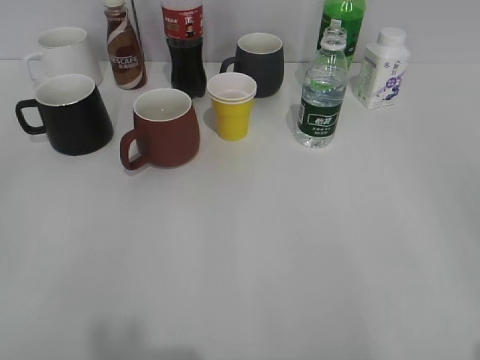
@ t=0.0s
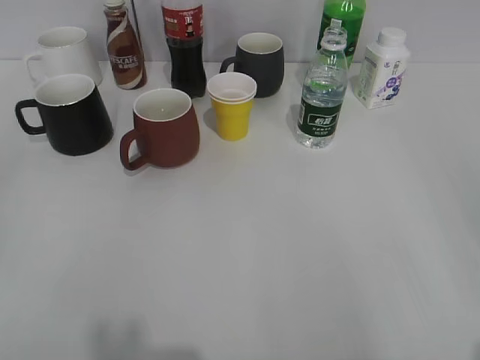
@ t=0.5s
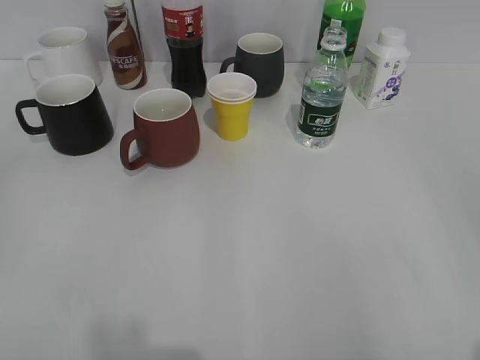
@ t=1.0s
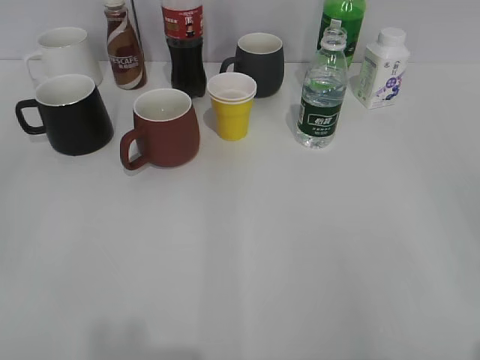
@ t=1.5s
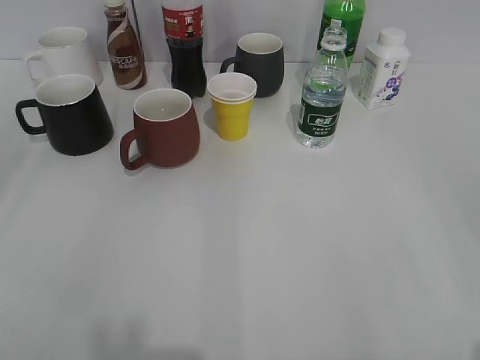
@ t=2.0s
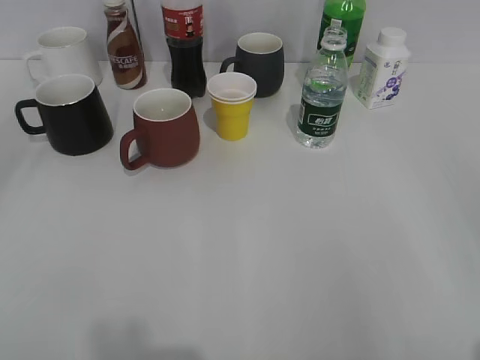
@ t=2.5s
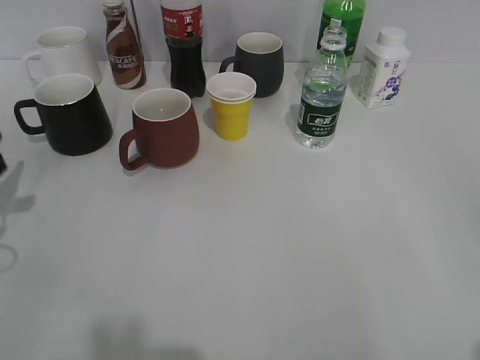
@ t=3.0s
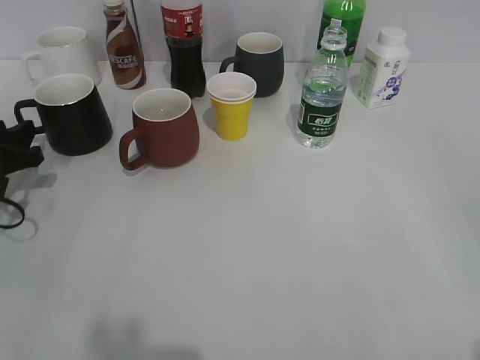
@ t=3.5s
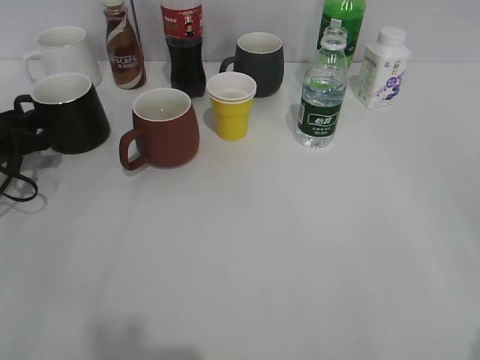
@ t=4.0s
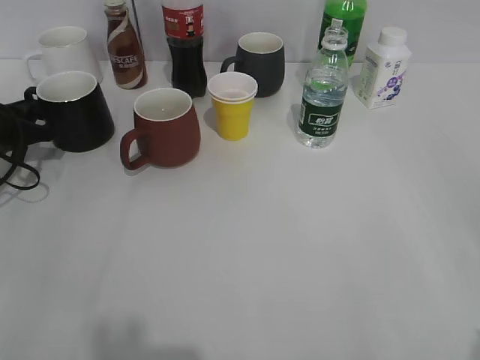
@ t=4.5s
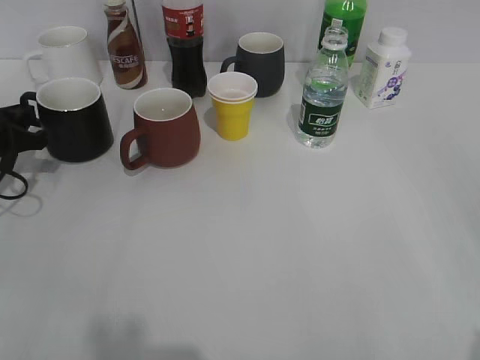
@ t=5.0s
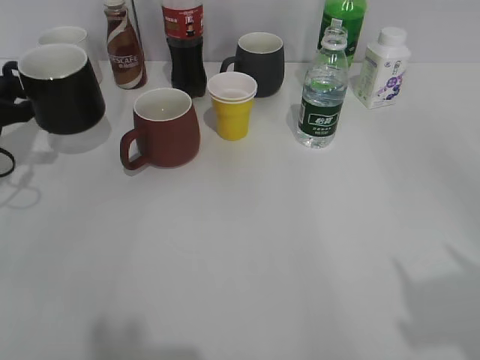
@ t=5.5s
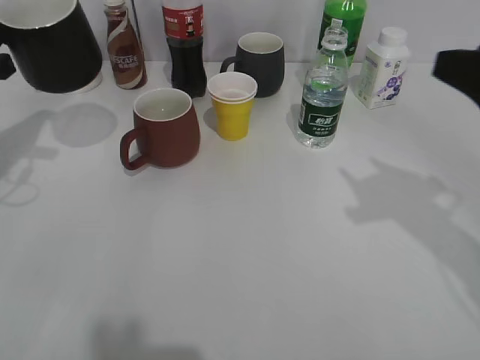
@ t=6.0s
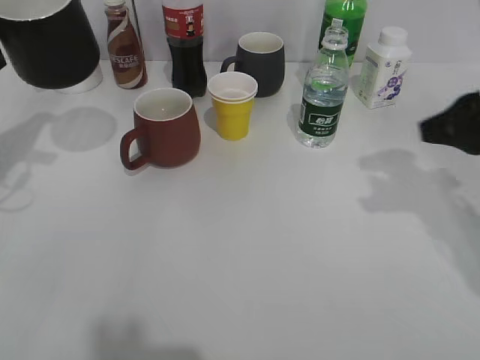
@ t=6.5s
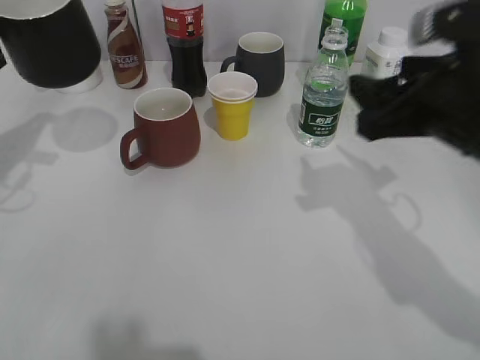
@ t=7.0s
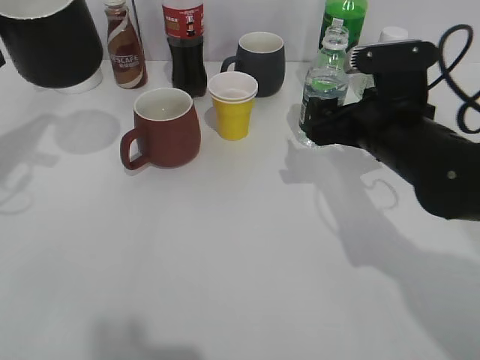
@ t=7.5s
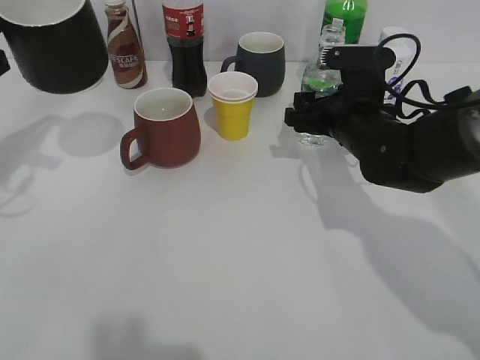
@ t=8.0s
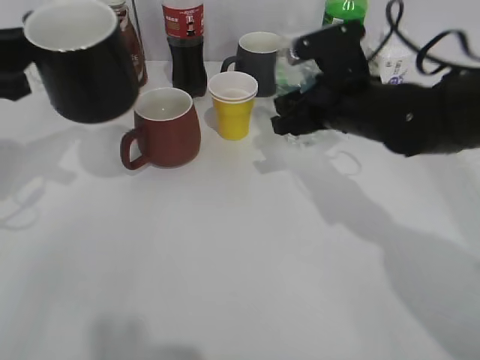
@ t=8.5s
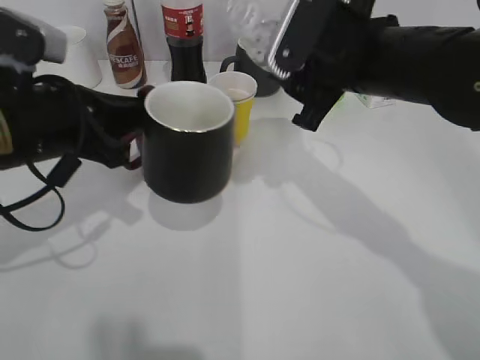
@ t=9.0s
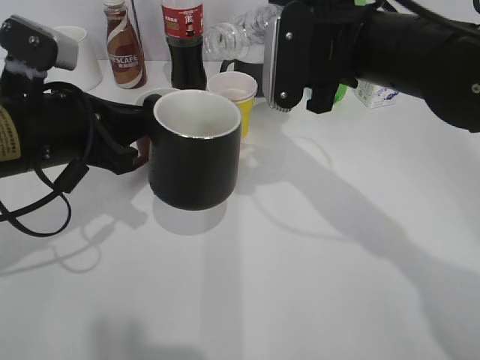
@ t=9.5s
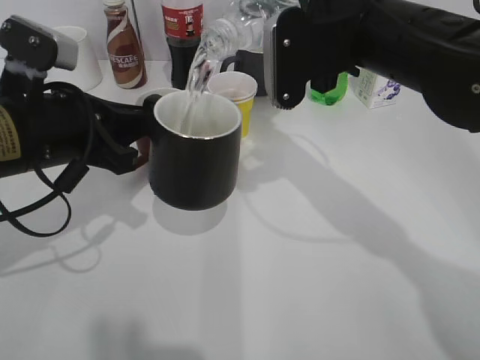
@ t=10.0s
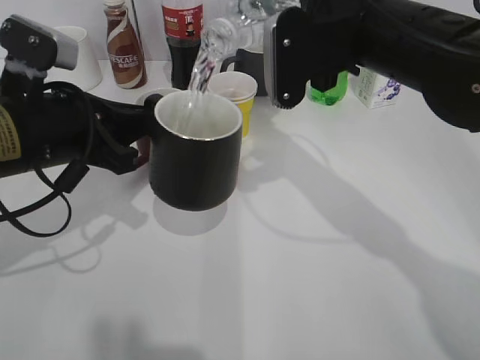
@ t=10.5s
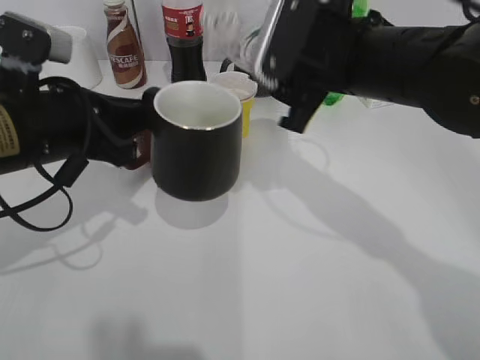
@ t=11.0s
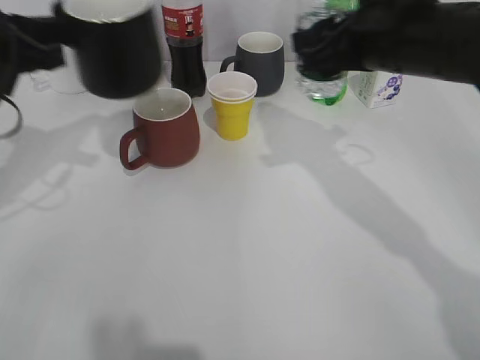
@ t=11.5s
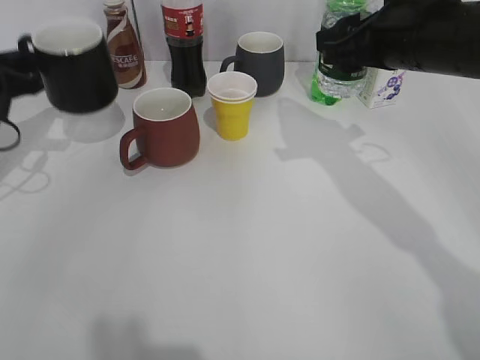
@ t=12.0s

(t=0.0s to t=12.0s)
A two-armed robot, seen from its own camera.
Step, t=2.0s - t=4.0s: Grasp the black cup with left gripper.
Step, t=4.5s - t=5.5s: Lift the black cup with left gripper.
Step, t=6.5s - t=8.0s: Grasp the bottle with water with right gripper.
Step, t=8.5s - t=10.5s: Pour the water from bottle to cup with right gripper.
t=2.0s - t=4.0s: The left gripper moves forward and downward, roughly 40 cm.
t=4.0s - t=6.0s: The right gripper is displaced forward by approximately 20 cm, and closes. Meanwhile the left gripper heads upward, covering roughly 10 cm, and closes its fingers.
t=6.0s - t=8.0s: The right gripper travels forward, downward and to the left by some 25 cm, and opens up.
t=8.0s - t=10.0s: The left gripper goes some 10 cm to the right. The right gripper is displaced upward by roughly 15 cm, and closes.
t=10.0s - t=12.0s: The left gripper heads to the left and forward, covering approximately 15 cm. Meanwhile the right gripper heads to the right, covering approximately 5 cm.

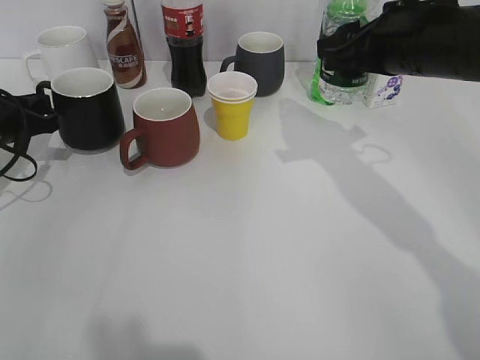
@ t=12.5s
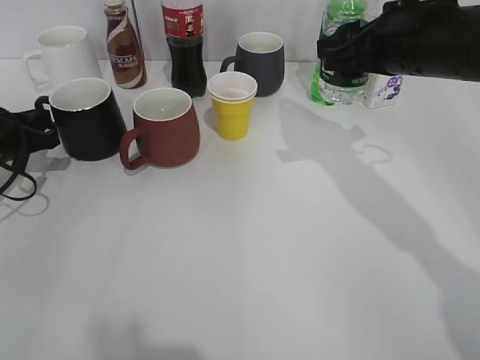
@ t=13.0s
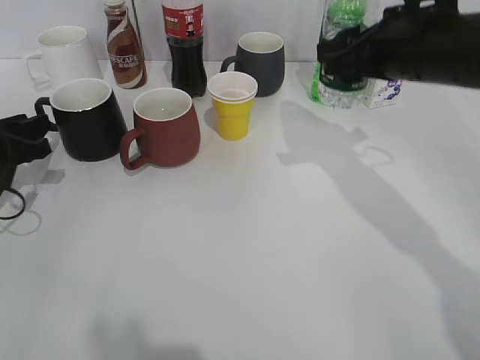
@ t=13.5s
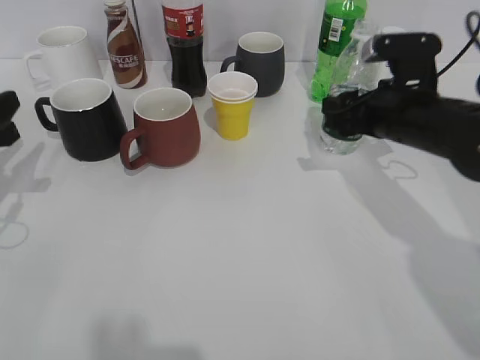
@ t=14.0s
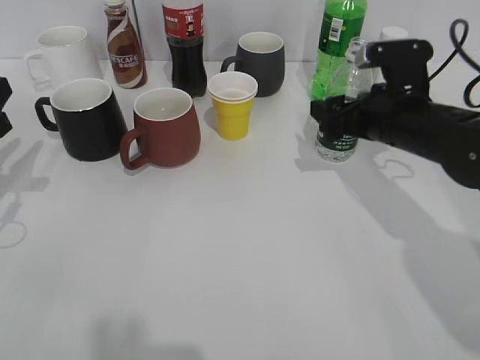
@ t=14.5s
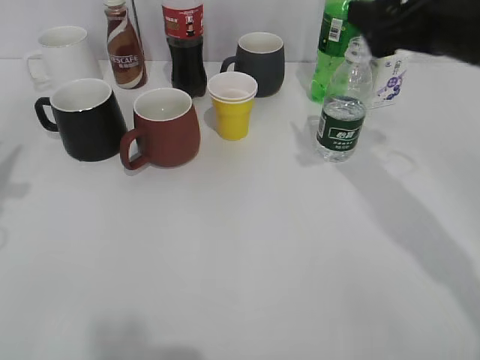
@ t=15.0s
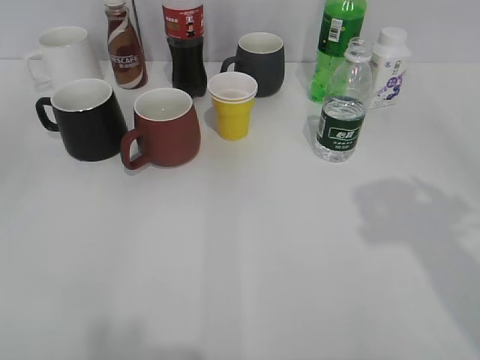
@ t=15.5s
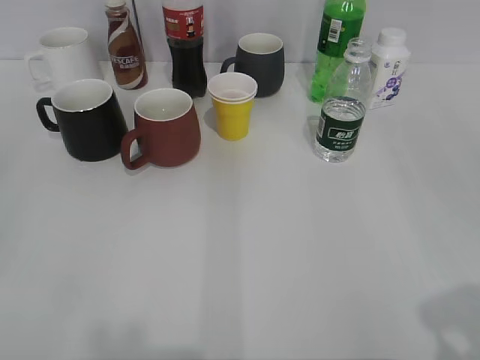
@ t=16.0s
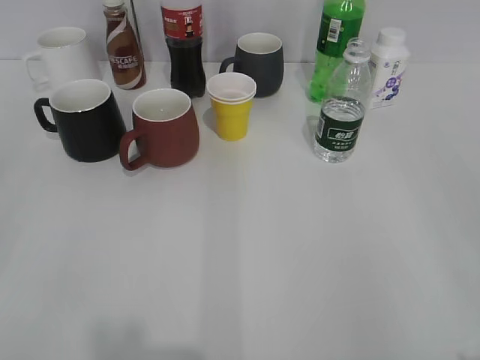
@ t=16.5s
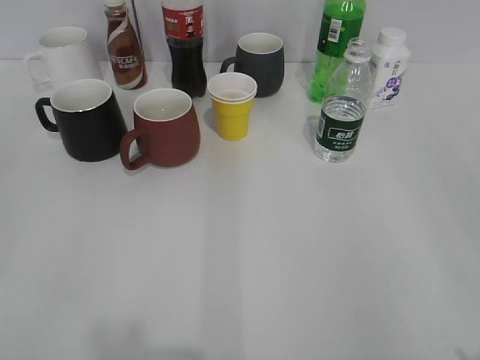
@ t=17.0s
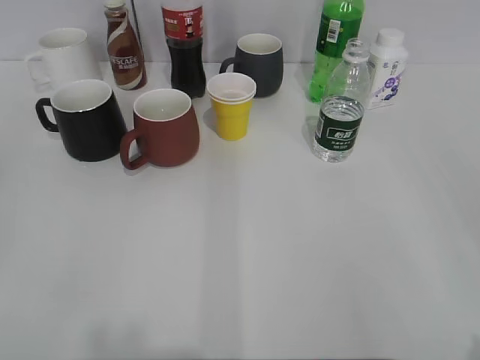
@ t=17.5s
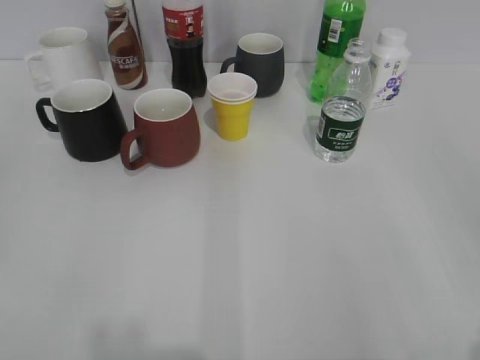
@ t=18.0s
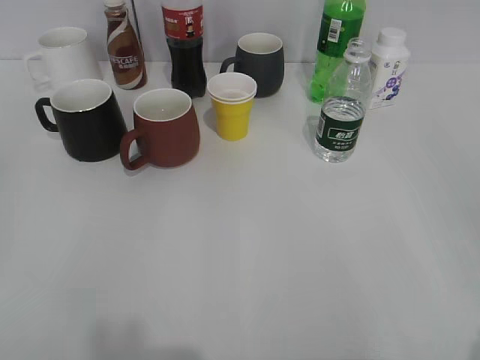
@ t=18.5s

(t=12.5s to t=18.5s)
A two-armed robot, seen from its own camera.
Step, t=13.5s - t=14.5s: Place the water bottle on the table with right gripper.
t=12.5s - t=14.5s: The right gripper heads downward, covering about 10 cm, and opens up, while the left gripper travels backward by roughly 10 cm, and opens.
t=14.5s - t=16.5s: Both grippers travel together backward, roughly 30 cm. The left gripper opens its fingers.

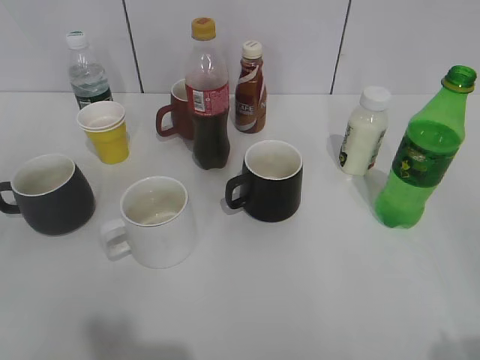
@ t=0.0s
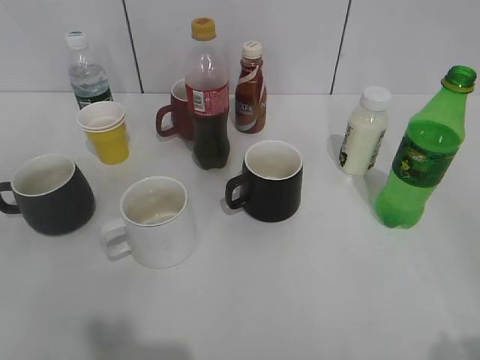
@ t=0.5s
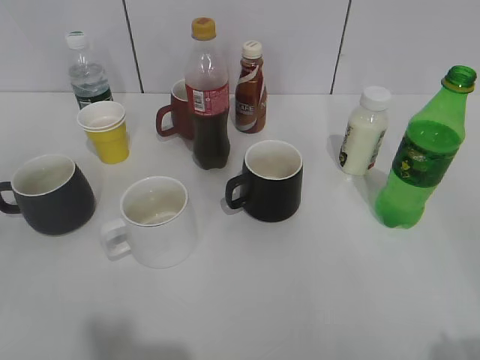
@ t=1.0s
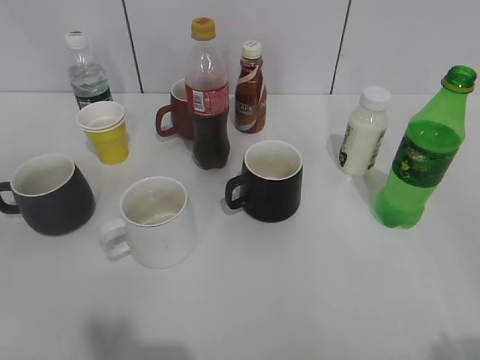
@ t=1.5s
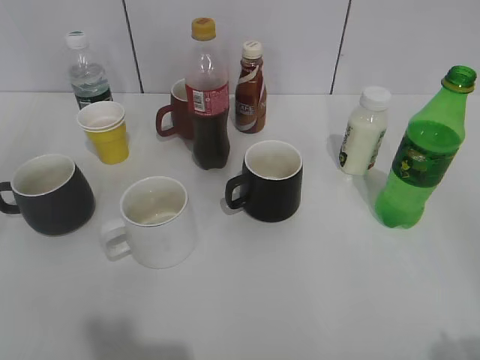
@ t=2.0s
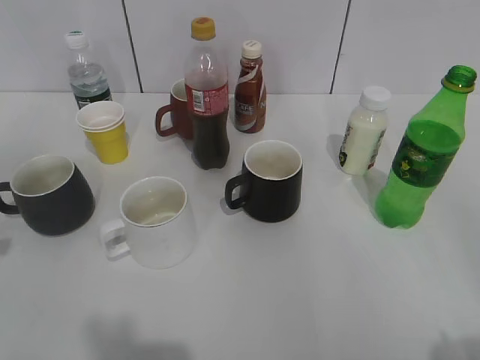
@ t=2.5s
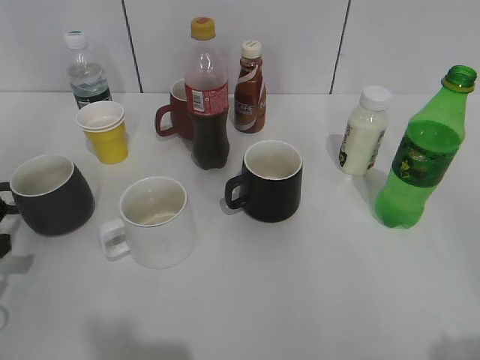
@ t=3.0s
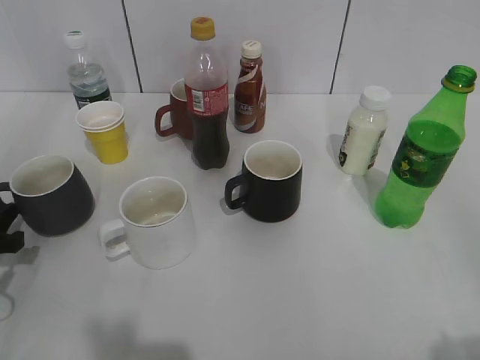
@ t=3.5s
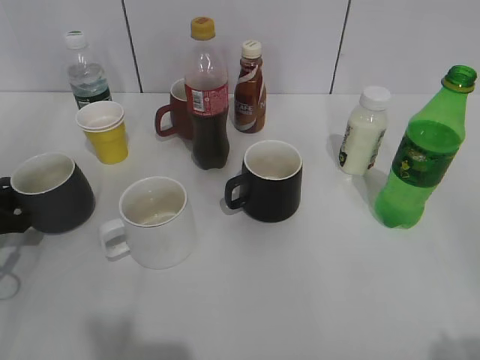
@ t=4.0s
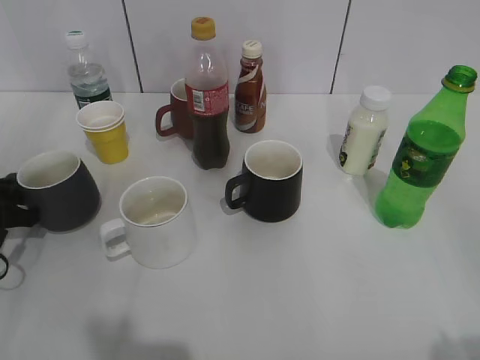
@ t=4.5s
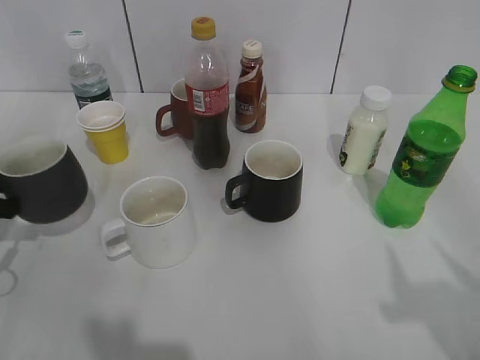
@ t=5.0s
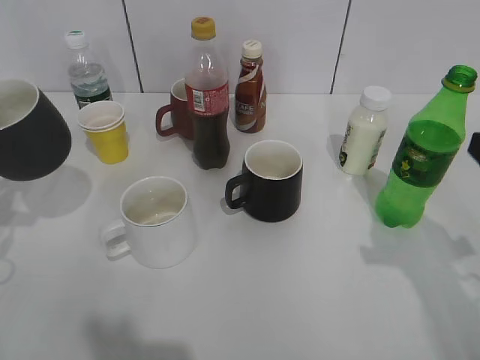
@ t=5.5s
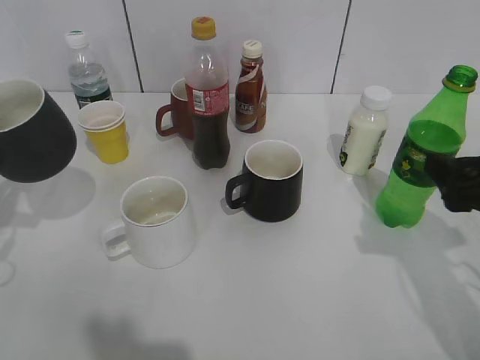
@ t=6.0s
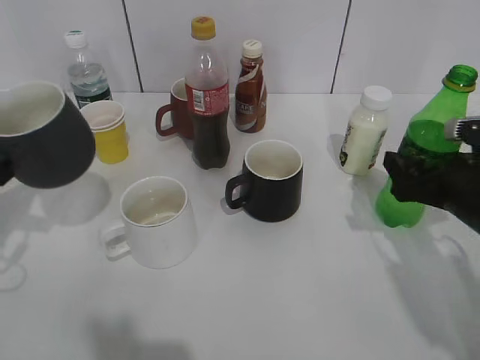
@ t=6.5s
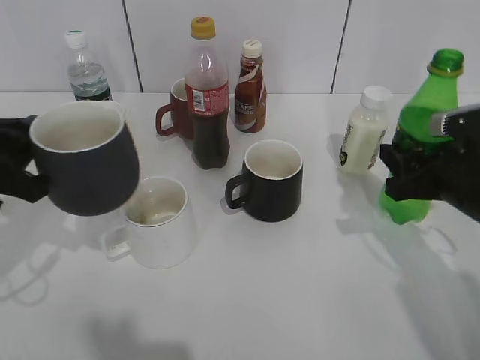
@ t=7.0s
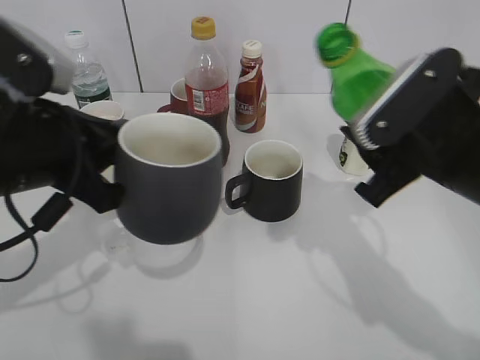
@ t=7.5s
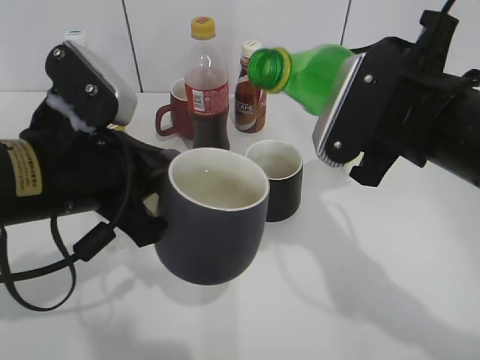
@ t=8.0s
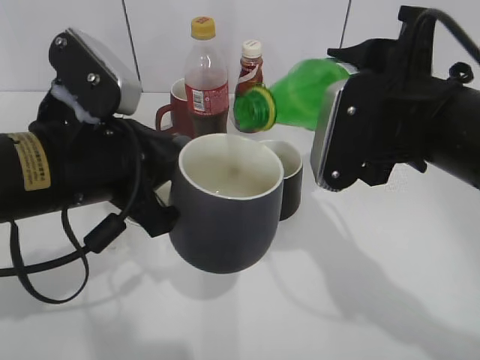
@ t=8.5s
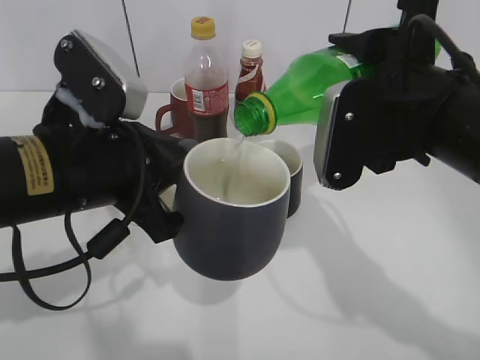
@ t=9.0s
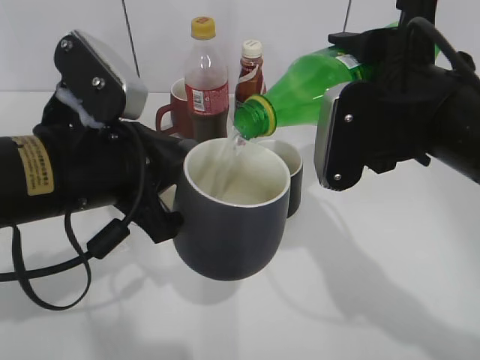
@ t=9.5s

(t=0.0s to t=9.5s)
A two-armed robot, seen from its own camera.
Step, t=3.0s - t=4.5s: Grasp the grey cup with left gripper.
Step, t=5.0s - t=5.5s: Lift the grey cup with left gripper.
Step, t=6.0s - t=6.5s: Grasp the bottle with sprite with right gripper.
t=2.0s - t=4.0s: The left gripper is displaced downward and forward by about 35 cm.
t=4.0s - t=5.5s: The left gripper heads upward, covering roughly 10 cm, and closes.
t=5.5s - t=7.5s: The right gripper moves to the left and forward, approximately 10 cm, travels downward and back again, some 10 cm each way, and opens and closes again; the left gripper goes roughly 15 cm to the right and upward.
t=7.5s - t=9.5s: The left gripper heads to the right, covering some 5 cm.
